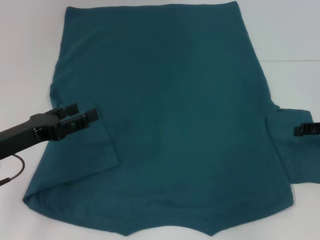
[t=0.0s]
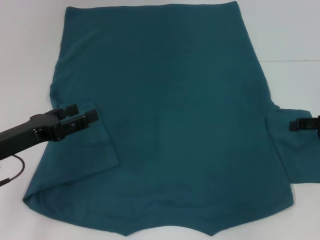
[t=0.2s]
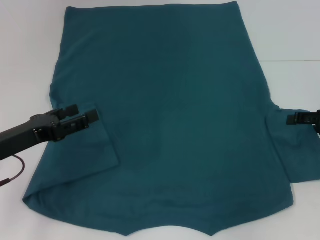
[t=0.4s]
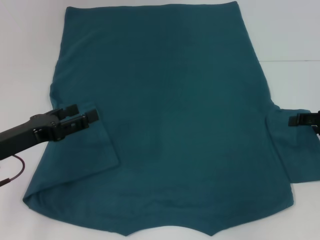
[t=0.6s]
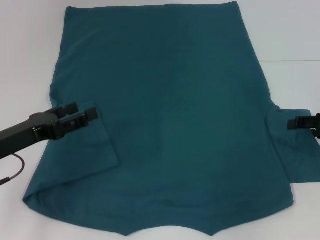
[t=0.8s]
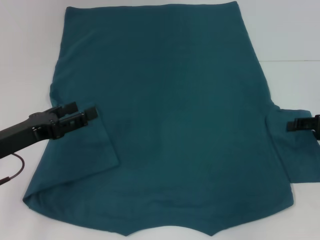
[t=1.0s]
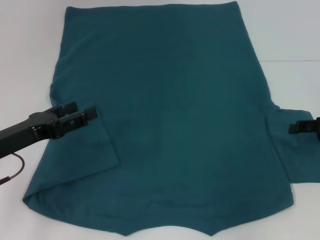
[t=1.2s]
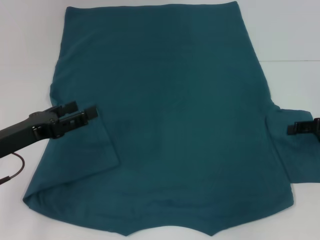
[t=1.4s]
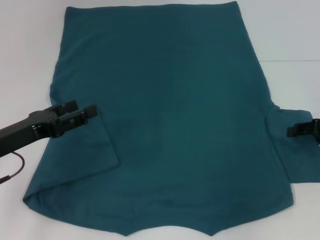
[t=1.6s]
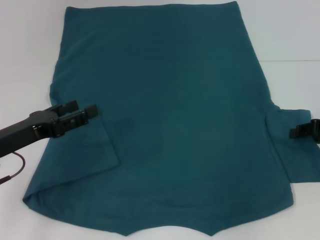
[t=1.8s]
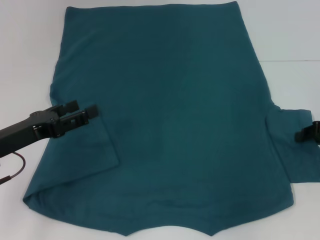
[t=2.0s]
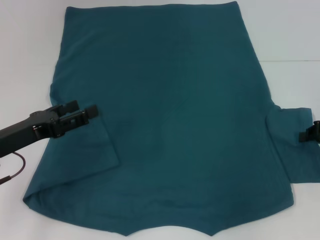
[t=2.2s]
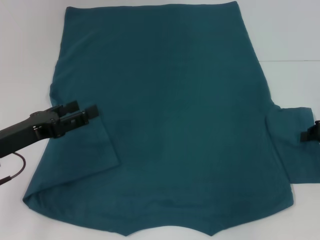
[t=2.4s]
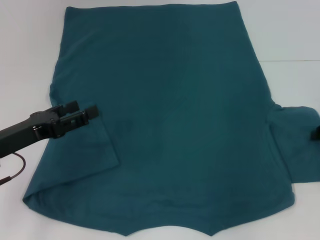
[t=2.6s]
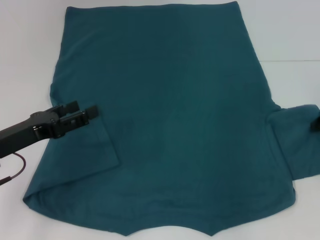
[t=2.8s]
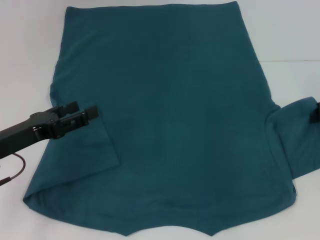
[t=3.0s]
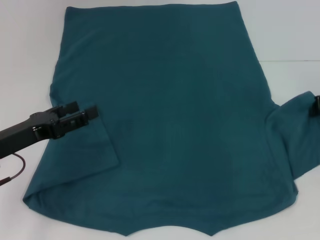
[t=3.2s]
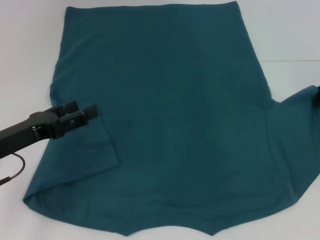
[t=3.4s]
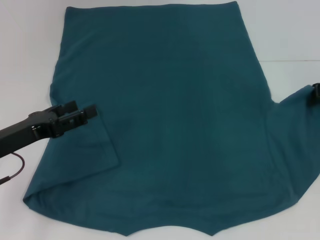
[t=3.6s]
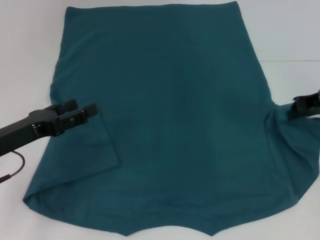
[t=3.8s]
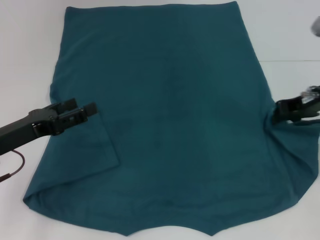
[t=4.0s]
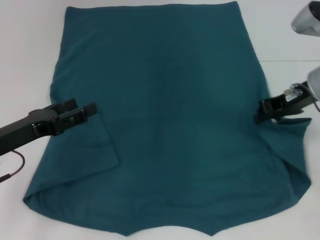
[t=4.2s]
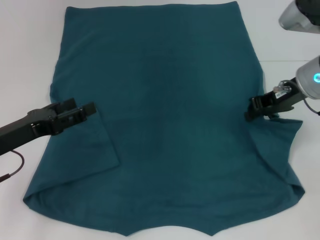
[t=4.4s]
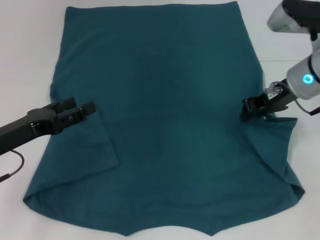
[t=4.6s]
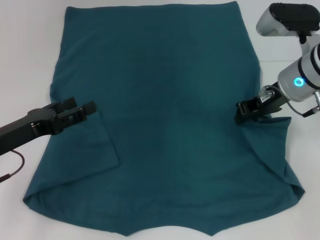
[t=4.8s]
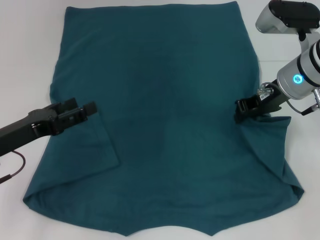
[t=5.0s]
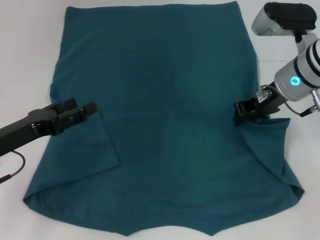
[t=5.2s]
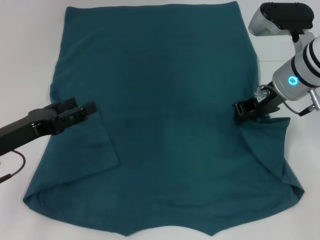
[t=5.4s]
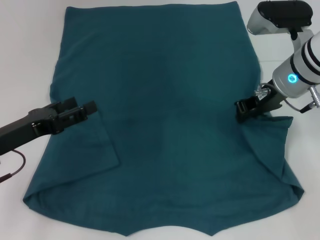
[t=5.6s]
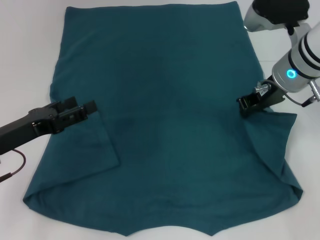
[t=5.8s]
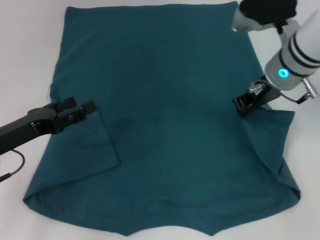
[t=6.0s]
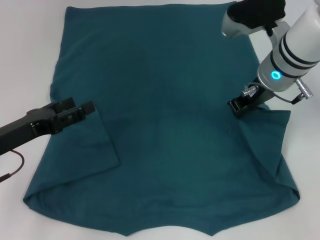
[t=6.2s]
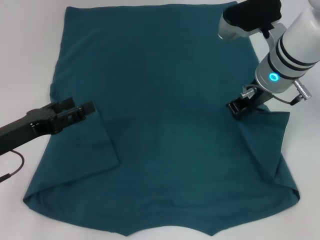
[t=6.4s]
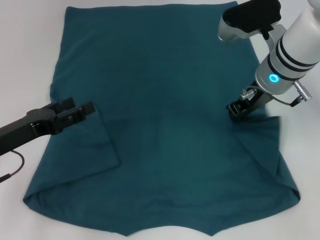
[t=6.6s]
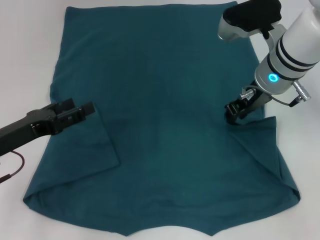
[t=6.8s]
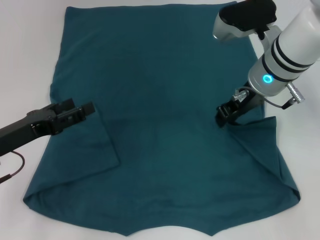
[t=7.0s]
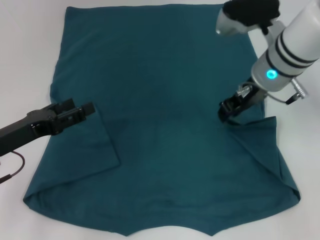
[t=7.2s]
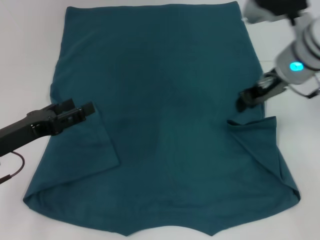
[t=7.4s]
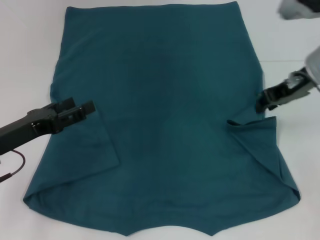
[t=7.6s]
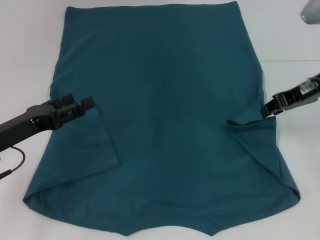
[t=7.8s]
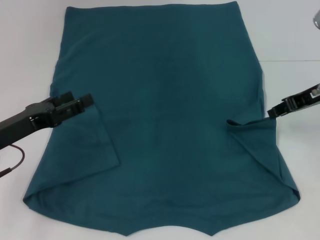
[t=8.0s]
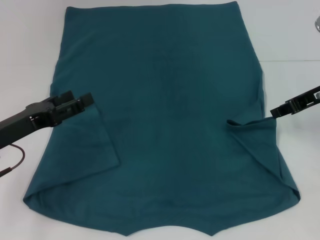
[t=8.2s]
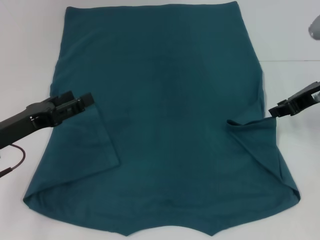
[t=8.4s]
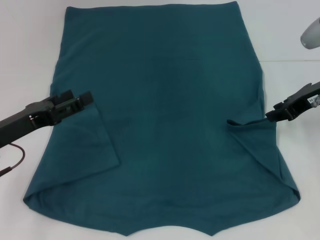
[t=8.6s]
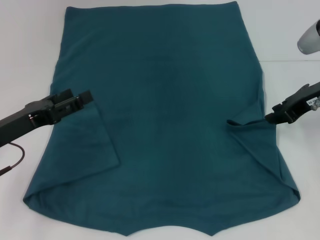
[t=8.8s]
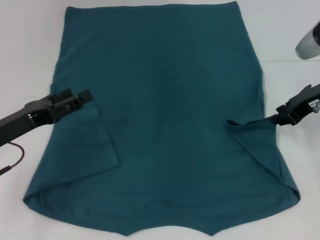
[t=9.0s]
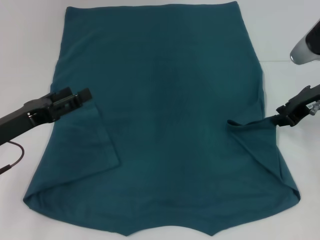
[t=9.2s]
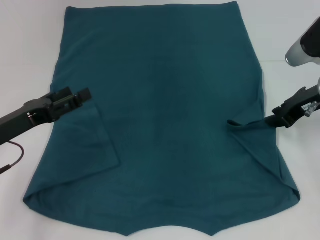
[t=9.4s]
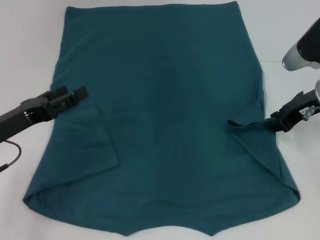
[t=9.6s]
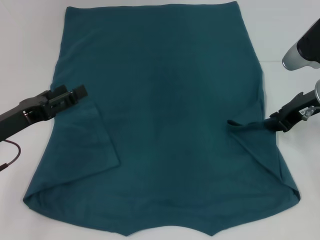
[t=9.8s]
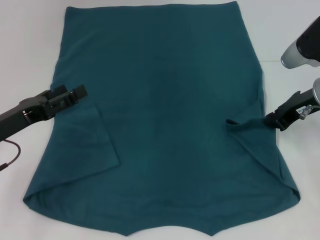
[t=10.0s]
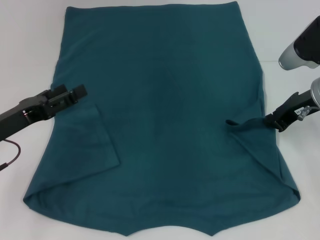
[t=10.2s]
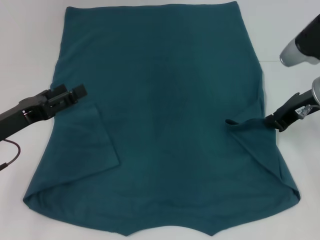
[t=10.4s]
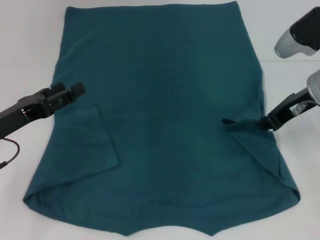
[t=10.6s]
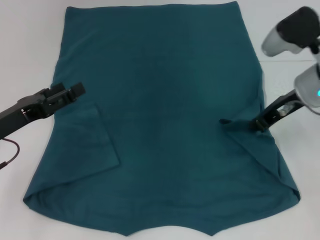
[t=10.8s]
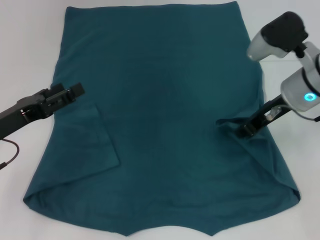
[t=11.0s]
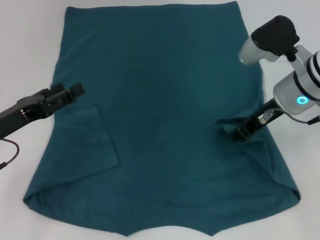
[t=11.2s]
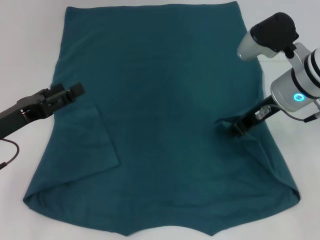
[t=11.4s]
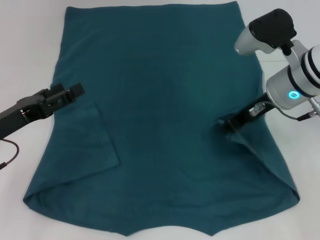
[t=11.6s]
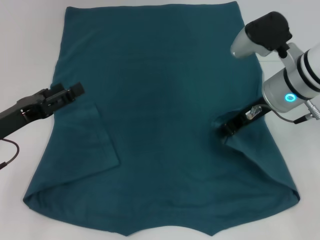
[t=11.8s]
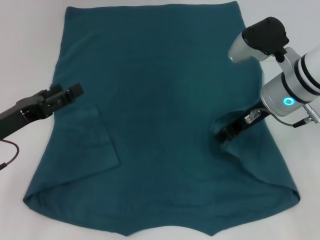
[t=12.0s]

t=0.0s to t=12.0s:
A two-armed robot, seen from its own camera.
t=0.0s to t=1.6s: The grippers stay close to where they were, moving slightly.
t=1.6s to t=3.0s: The right gripper shifts by some 5 cm, and closes.
t=3.0s to t=4.4s: The right gripper travels to the left by some 10 cm.
t=4.4s to t=6.0s: The right gripper shifts approximately 5 cm to the left.
t=6.0s to t=7.6s: The right gripper heads to the right, covering some 5 cm.
t=7.6s to t=9.0s: The right gripper shifts by roughly 5 cm.
t=9.0s to t=10.4s: There are only small adjustments of the grippers.
t=10.4s to t=12.0s: The right gripper is displaced to the left by roughly 10 cm.

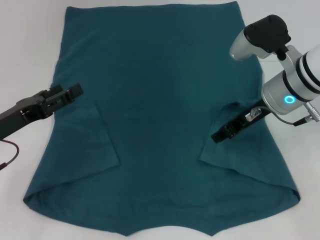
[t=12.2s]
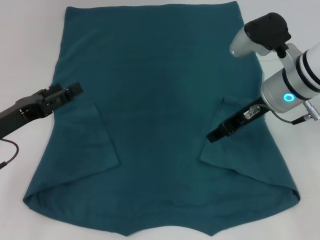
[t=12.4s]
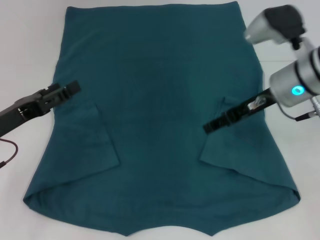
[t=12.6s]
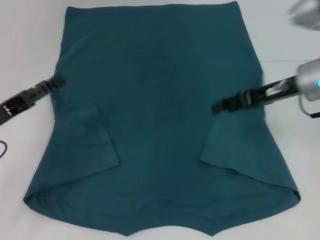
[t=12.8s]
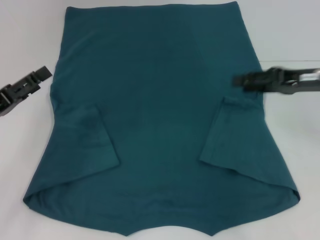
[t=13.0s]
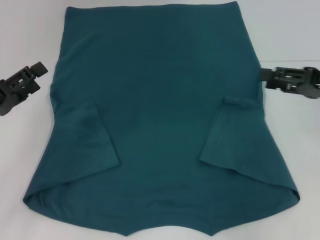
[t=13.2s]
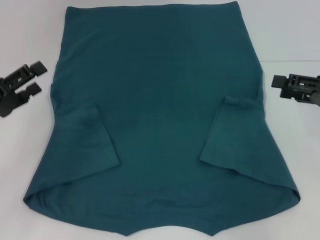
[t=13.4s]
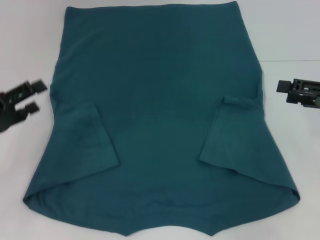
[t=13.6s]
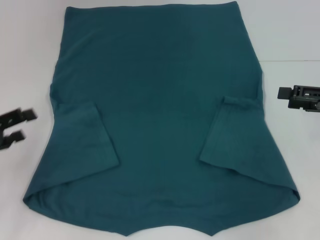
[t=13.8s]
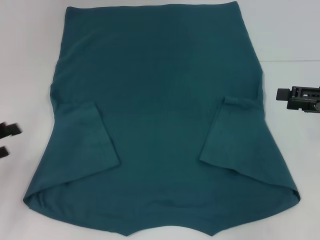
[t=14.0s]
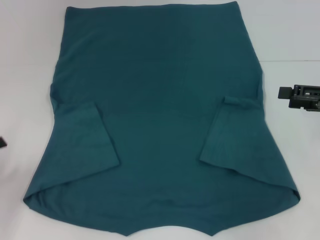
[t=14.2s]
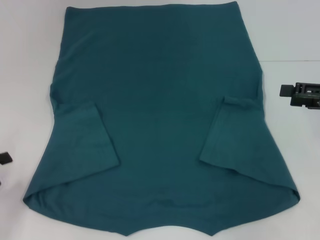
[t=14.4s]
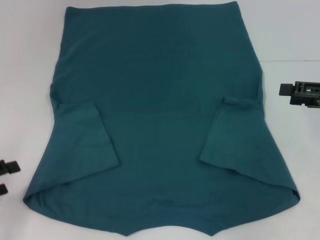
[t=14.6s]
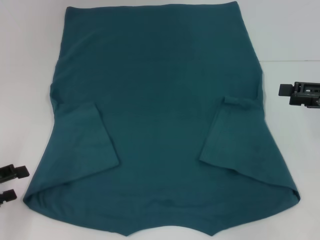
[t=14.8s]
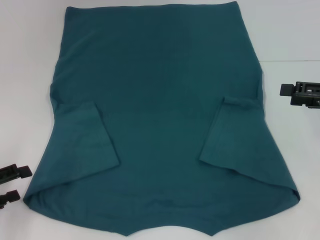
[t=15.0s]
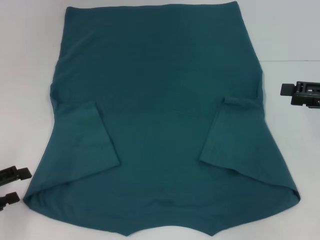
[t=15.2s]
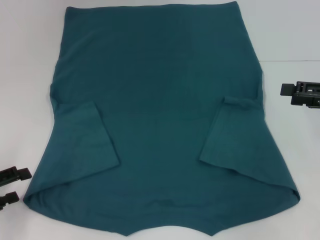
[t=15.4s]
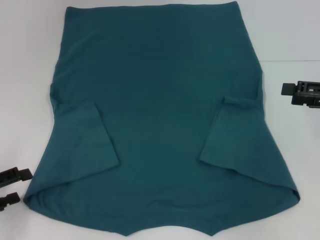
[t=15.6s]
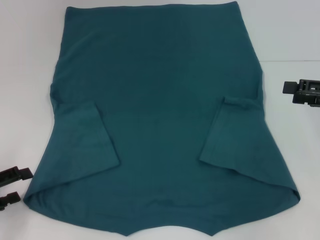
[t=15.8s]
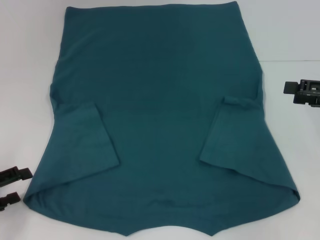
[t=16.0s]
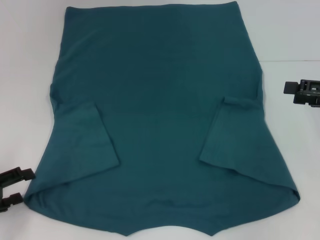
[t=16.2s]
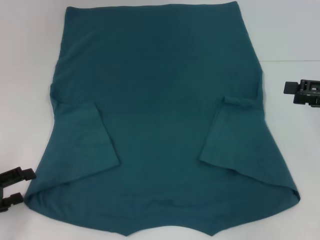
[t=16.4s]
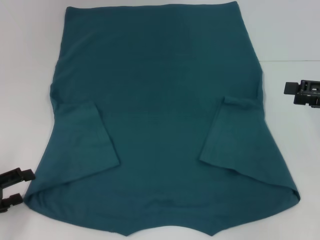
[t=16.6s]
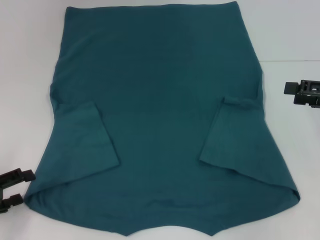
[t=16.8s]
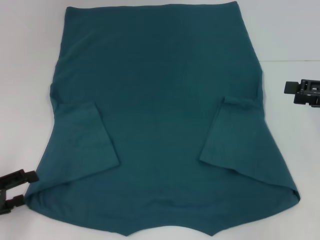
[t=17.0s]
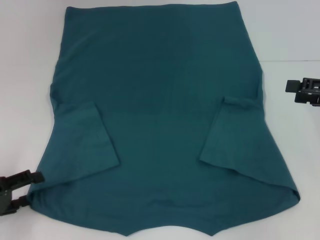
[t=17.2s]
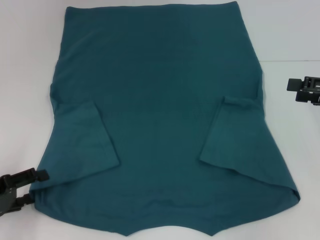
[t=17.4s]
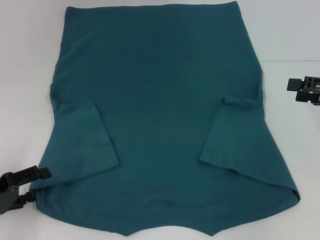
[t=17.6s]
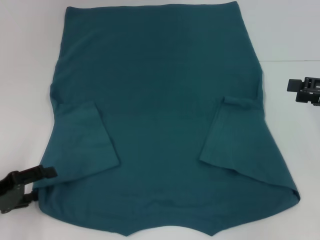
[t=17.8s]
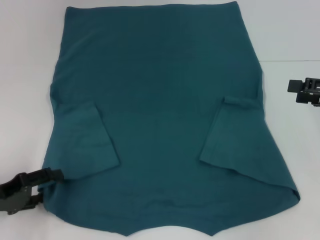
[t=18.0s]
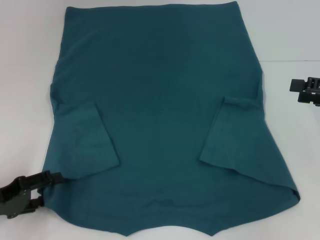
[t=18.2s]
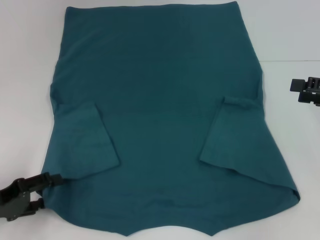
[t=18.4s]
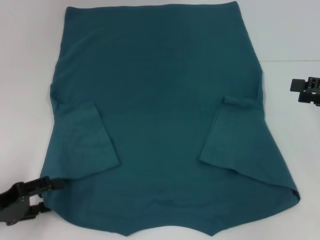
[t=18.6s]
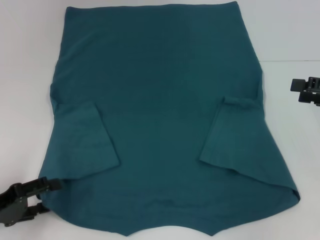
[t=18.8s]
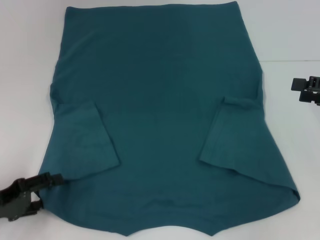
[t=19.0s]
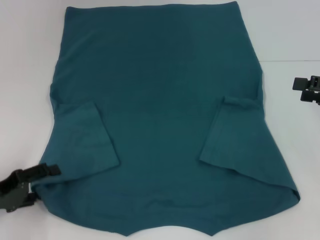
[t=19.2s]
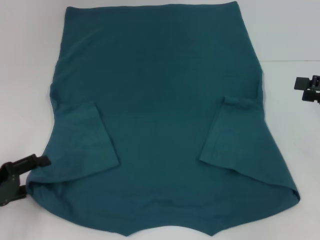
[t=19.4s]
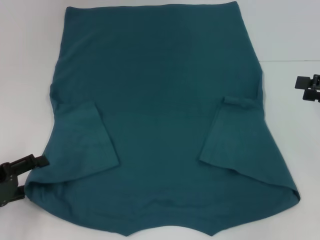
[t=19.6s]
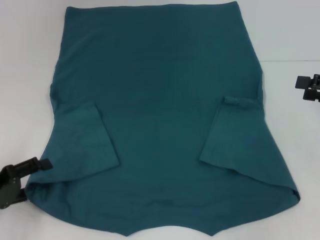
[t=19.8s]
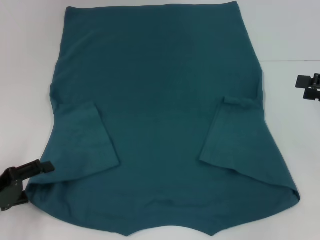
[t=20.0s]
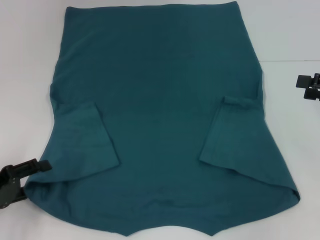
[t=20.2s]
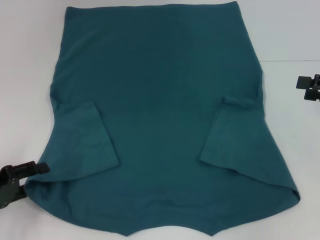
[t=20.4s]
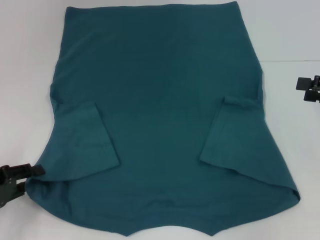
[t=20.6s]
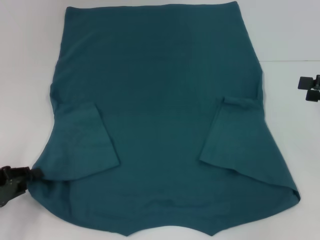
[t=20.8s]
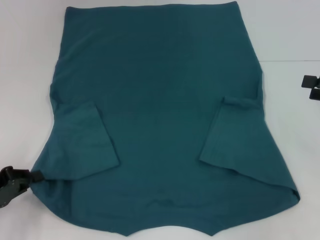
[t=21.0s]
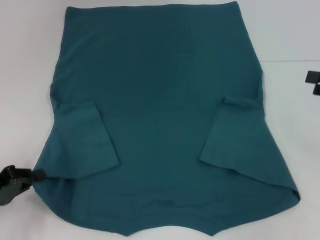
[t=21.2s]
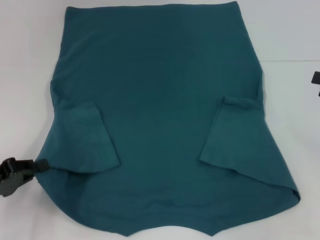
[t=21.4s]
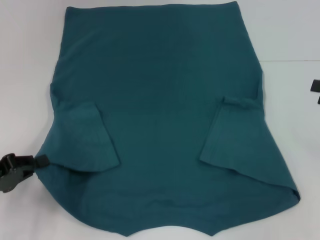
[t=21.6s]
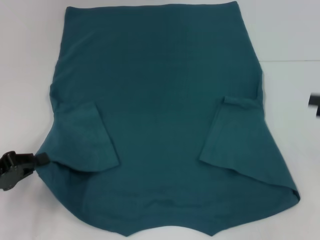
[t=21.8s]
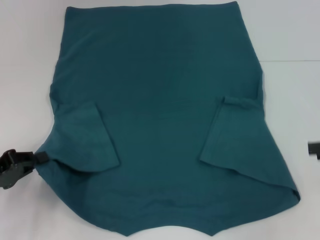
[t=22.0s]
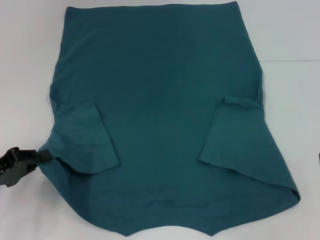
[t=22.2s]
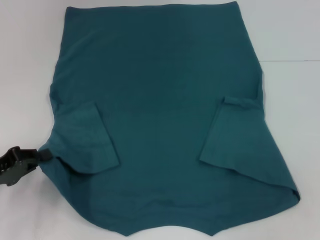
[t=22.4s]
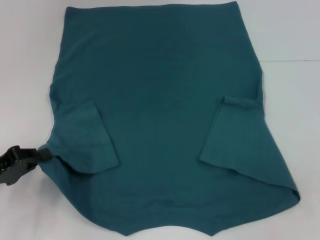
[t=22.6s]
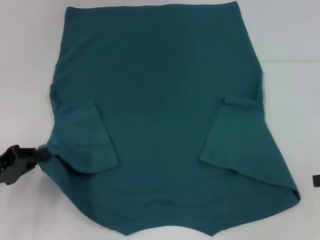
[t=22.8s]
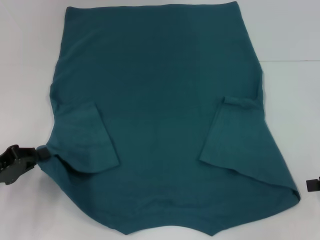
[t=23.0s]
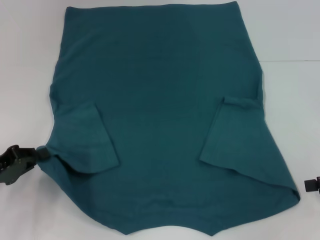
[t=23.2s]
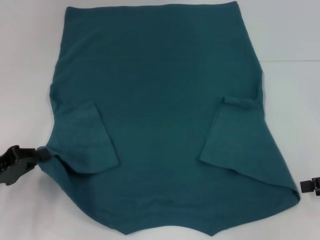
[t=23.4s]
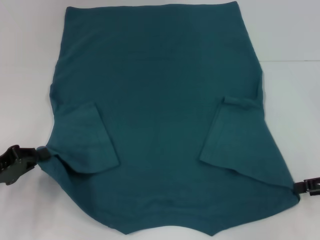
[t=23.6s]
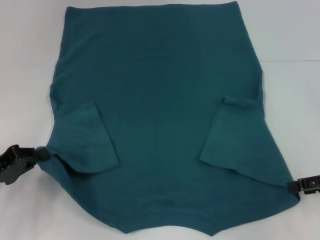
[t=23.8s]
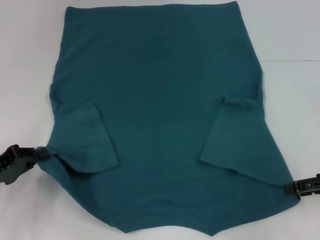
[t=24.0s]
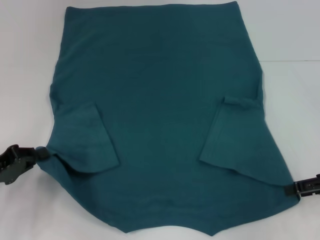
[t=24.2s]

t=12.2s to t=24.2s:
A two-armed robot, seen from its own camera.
Step, t=12.6s to t=20.8s: Grab the bottom left corner with your left hand.
t=12.2s to t=13.8s: The right gripper shifts some 15 cm to the right, and opens up. Meanwhile the left gripper shifts about 5 cm to the left.
t=13.8s to t=15.2s: The left gripper goes approximately 5 cm backward.
t=15.2s to t=16.6s: The two grippers keep their place.
t=16.6s to t=19.8s: There are only small adjustments of the grippers.
t=19.8s to t=21.2s: The left gripper closes its fingers.
t=22.6s to t=24.2s: The right gripper shifts some 5 cm to the left.
